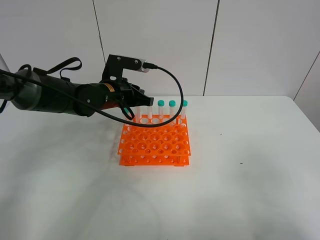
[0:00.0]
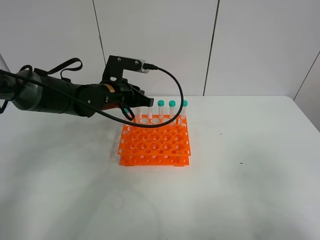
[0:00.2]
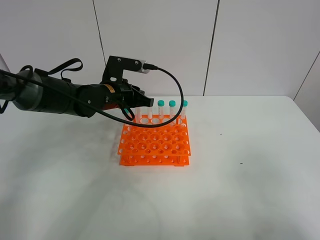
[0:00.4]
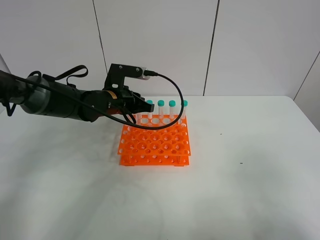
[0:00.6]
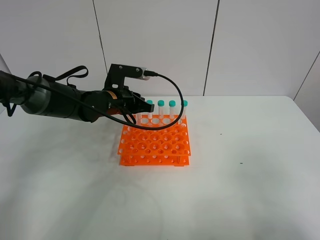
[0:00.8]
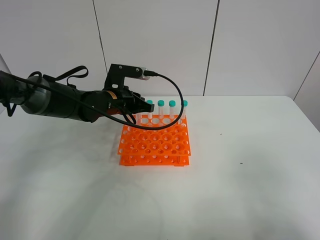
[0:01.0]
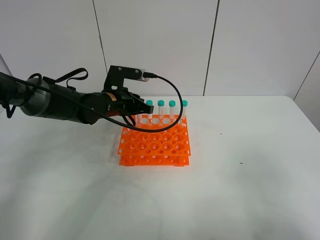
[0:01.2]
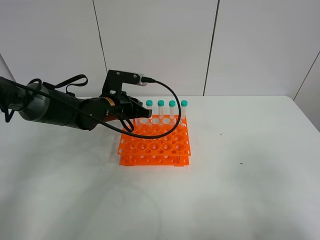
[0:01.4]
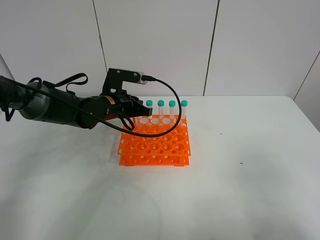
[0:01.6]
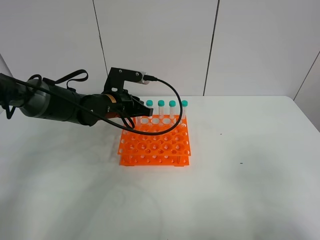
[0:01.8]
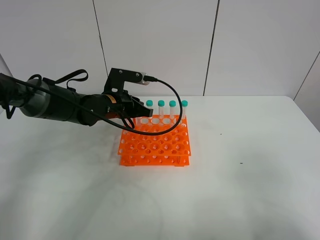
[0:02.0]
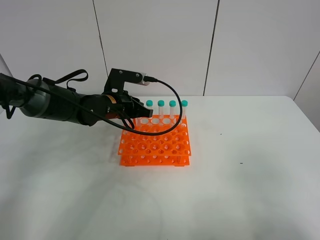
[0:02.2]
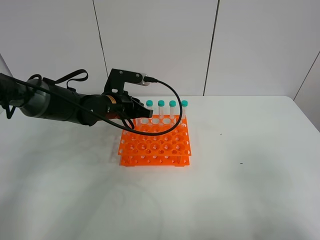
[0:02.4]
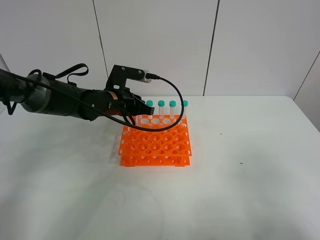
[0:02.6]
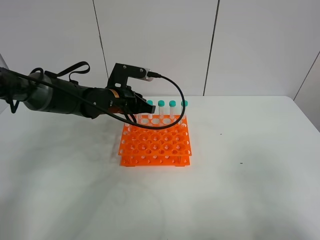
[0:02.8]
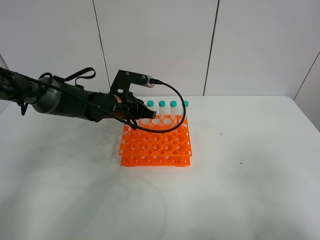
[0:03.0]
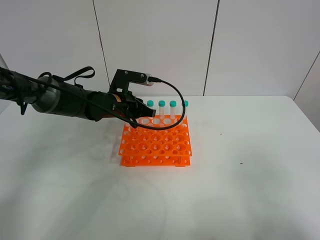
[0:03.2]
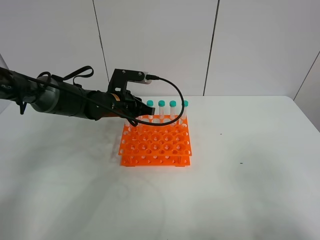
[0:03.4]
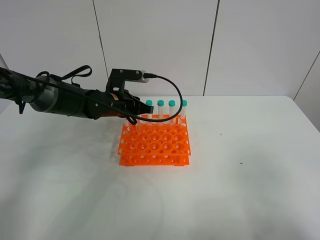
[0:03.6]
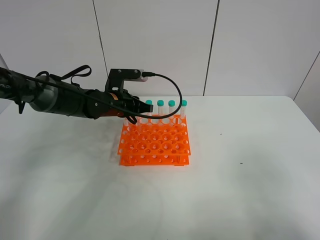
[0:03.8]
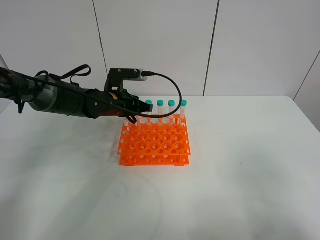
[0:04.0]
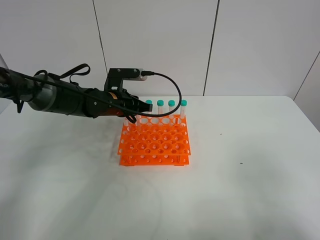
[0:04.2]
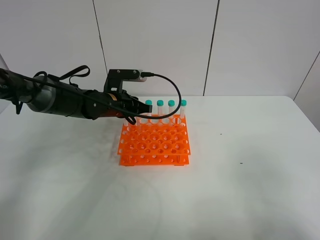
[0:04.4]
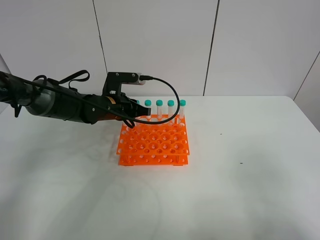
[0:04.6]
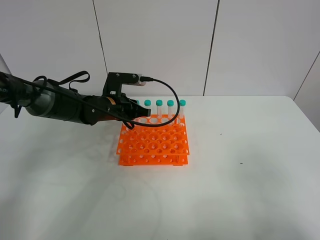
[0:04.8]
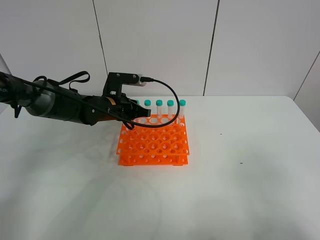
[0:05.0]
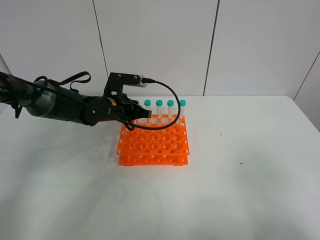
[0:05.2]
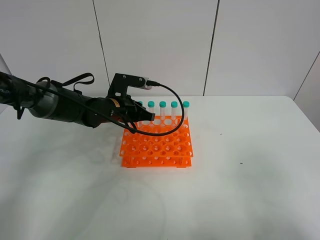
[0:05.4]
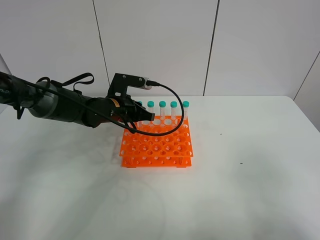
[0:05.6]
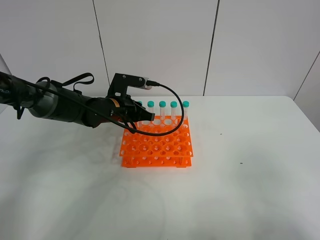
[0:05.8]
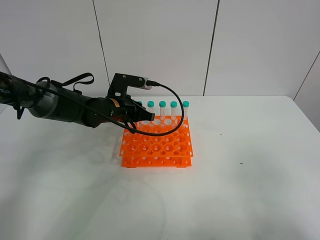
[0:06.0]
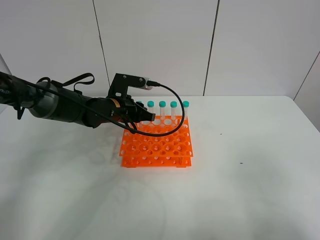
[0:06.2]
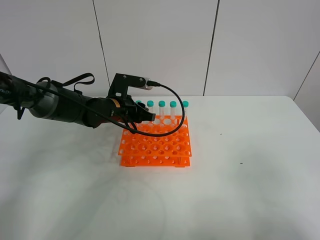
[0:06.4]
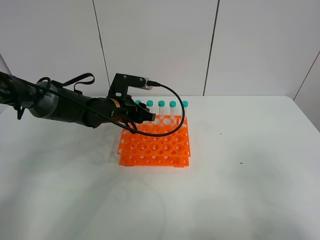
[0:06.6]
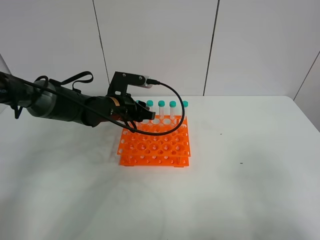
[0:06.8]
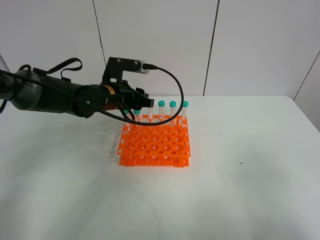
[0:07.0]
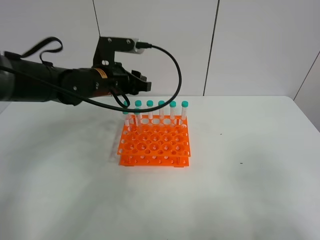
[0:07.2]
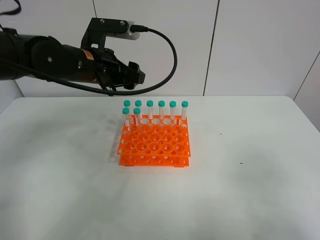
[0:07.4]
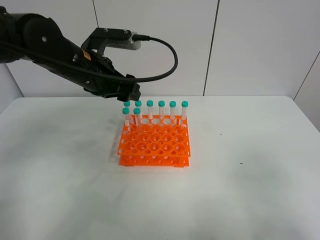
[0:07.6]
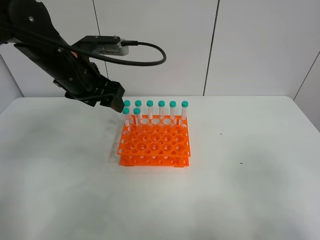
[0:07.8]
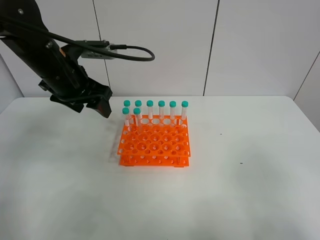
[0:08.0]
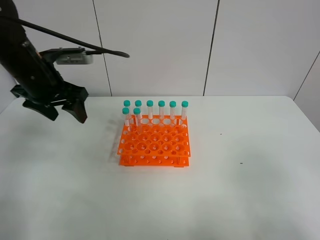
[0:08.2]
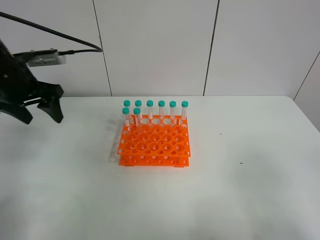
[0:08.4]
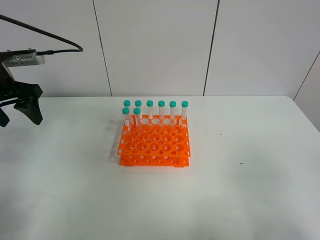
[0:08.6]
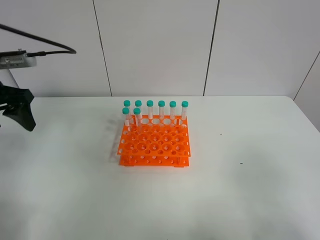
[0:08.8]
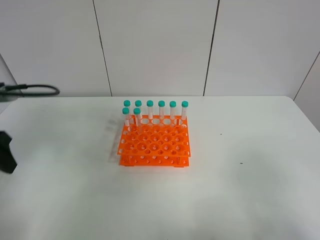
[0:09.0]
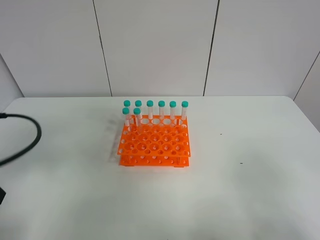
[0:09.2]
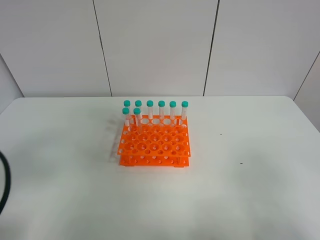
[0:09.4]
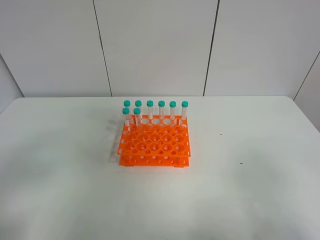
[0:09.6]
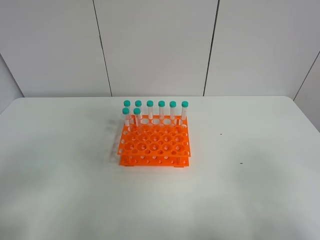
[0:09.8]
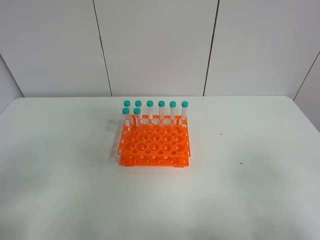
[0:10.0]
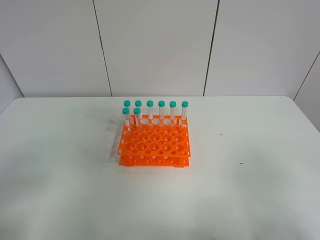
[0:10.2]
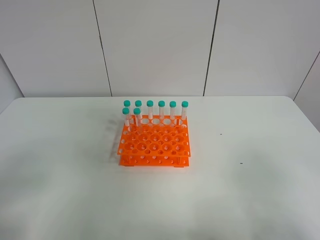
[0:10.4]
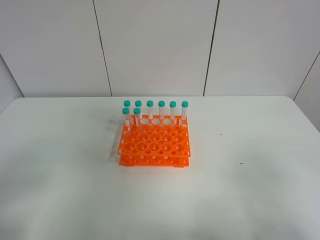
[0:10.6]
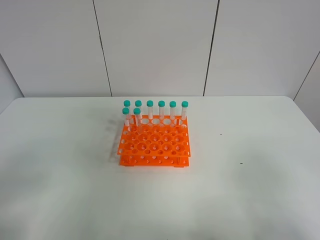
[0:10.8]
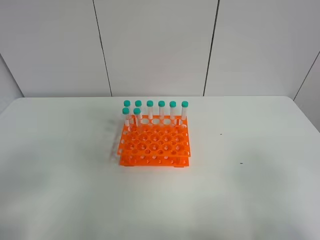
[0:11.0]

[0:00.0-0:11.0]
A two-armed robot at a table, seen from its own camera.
Task of the whole recording: Put the test tube on the table back onto the test tube rack.
Step, 0:00.0 to 0:06.4: Place the test tube on the test tube rack with the left gripper.
0:00.0 to 0:06.2: The grippers make only small movements.
0:06.2 to 0:07.8: The left gripper moves upward, about 15 cm, and opens its fingers.
0:07.8 to 0:09.4: The left gripper travels backward and to the left by approximately 30 cm.
